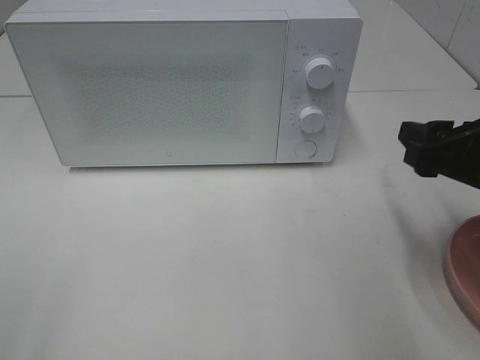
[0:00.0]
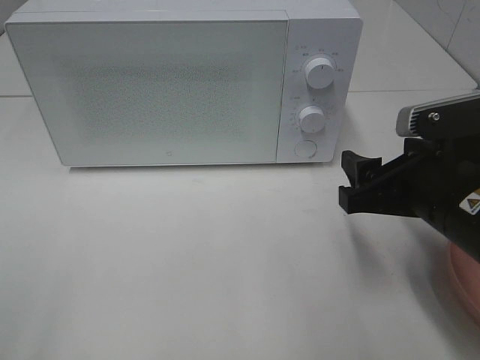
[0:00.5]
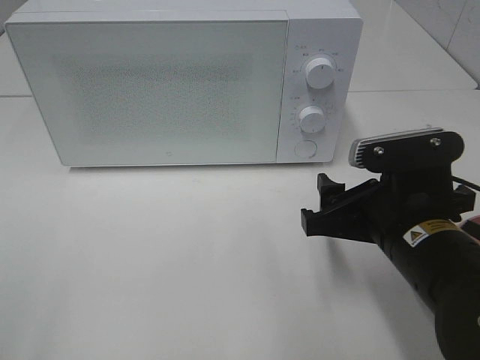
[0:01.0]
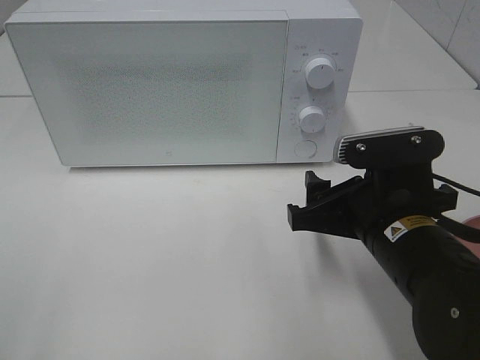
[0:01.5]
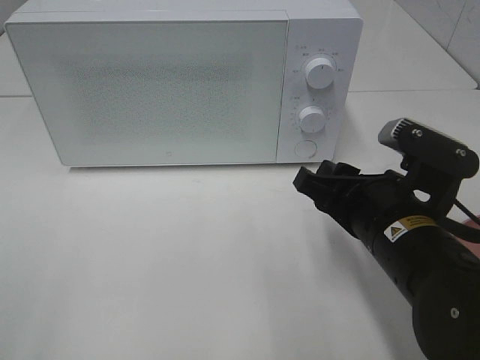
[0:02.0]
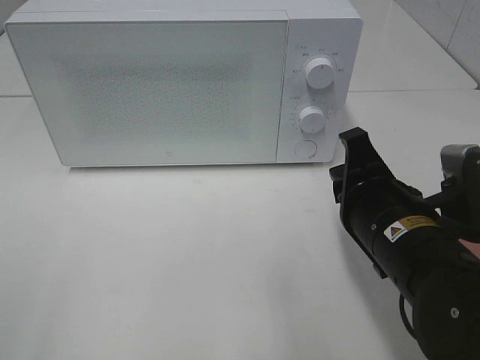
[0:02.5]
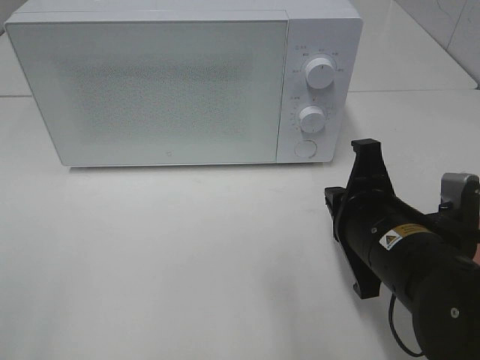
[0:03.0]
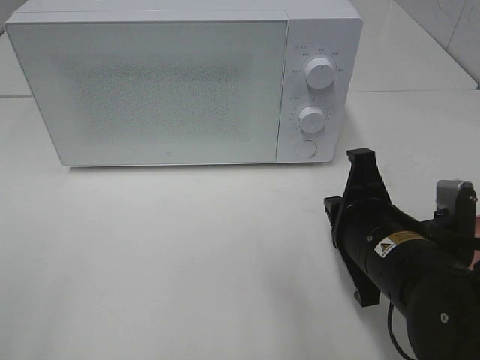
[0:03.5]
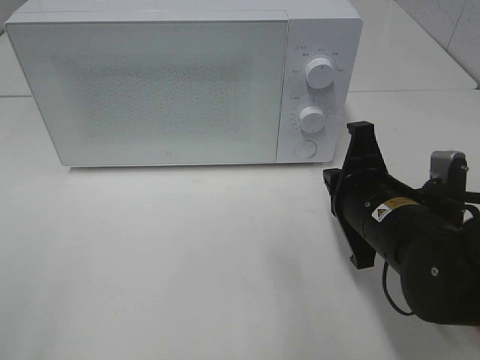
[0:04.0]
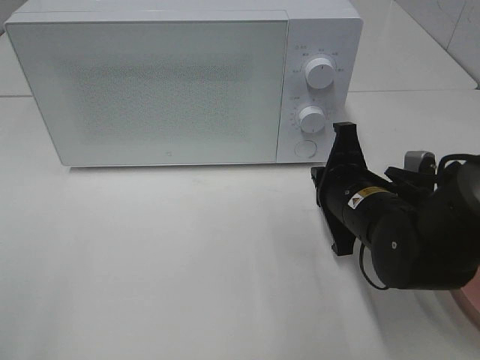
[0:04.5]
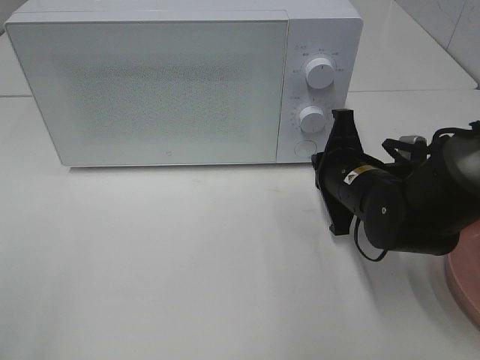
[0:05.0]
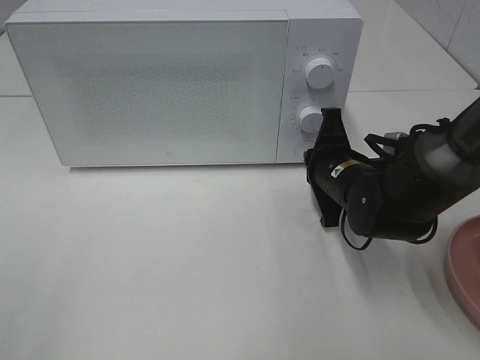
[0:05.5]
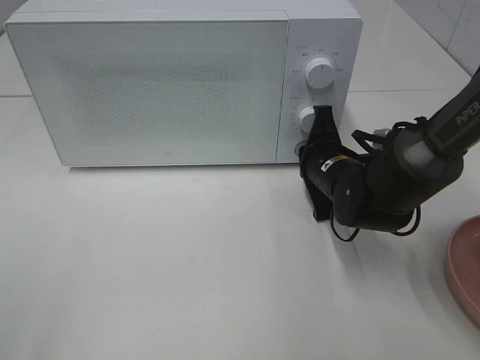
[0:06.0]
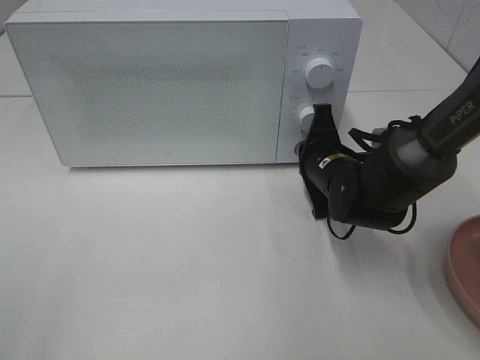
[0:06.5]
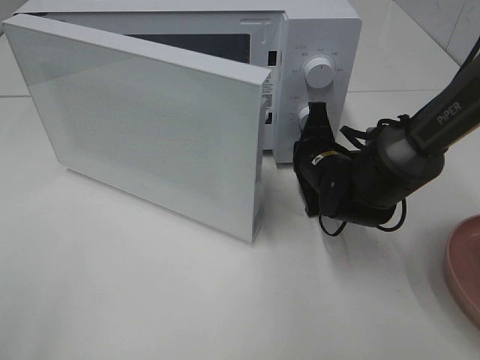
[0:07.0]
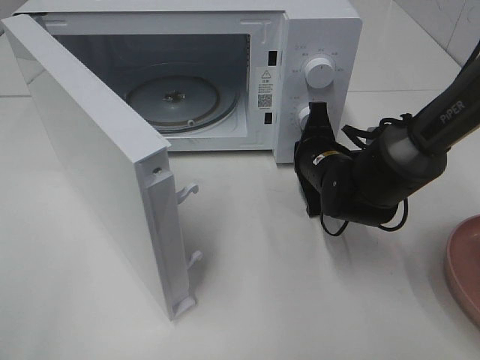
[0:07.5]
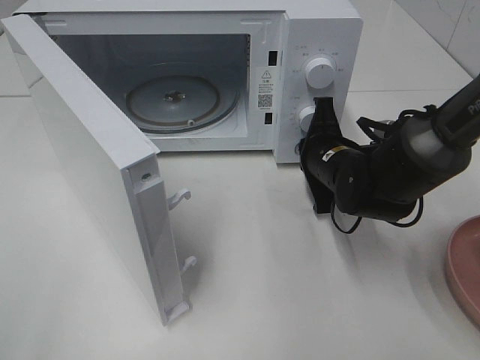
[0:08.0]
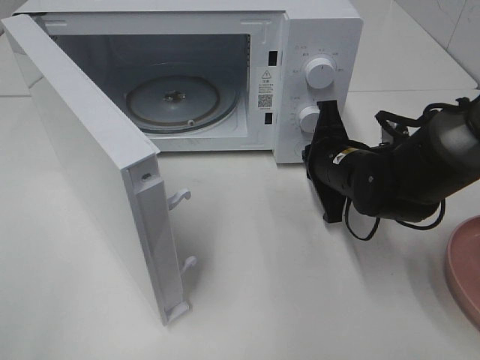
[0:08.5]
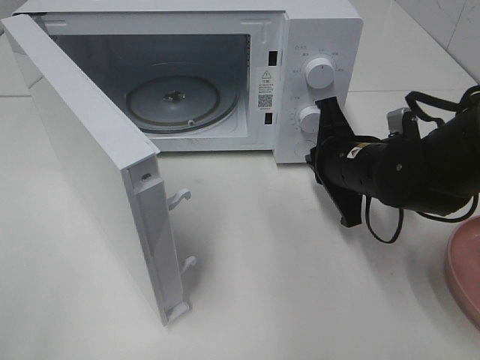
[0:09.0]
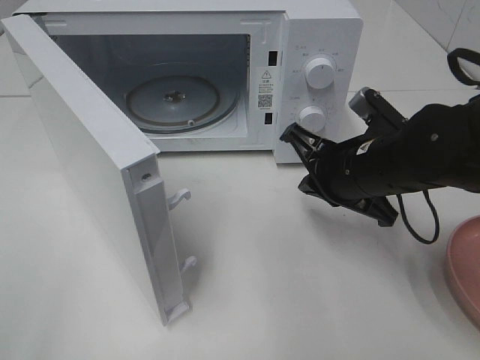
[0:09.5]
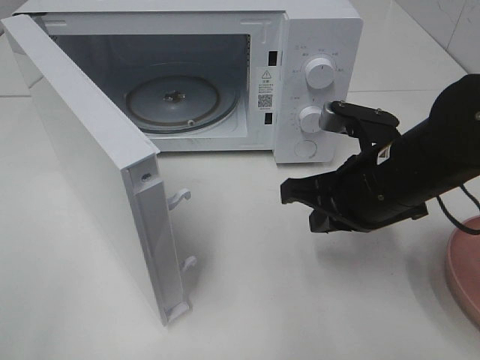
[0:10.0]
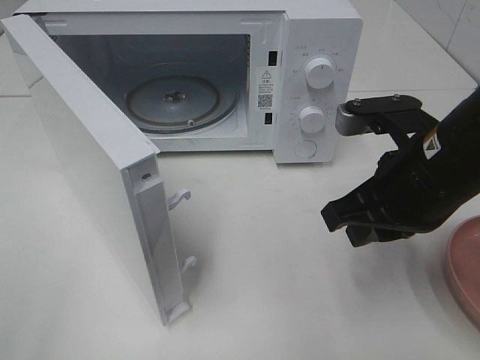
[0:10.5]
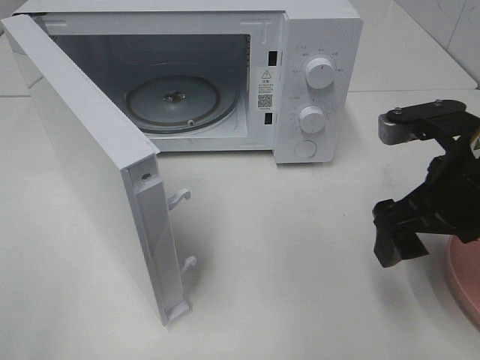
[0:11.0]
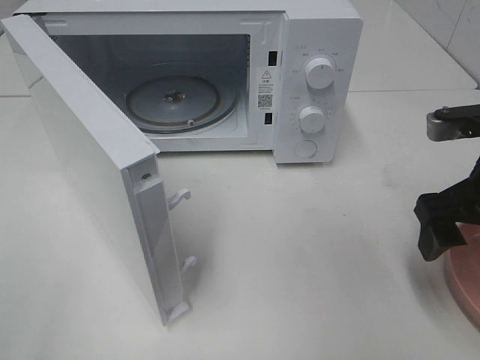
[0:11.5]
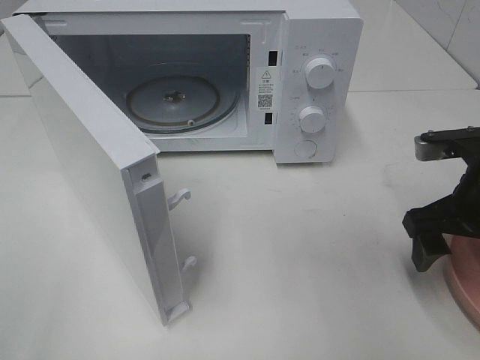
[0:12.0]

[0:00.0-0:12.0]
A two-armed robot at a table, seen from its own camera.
Task of the whole recording: Heat the burger.
Step, 0:00.0 to 0:08.0: Right hand: press the switch.
0:00.0 to 0:02.0: The right gripper goes approximately 10 cm to the left and downward.
0:02.0 to 0:04.0: The right gripper closes up.
0:04.0 to 0:06.0: The right gripper shifts about 15 cm forward and downward.
0:08.0 to 0:10.0: The right gripper is displaced backward and upward by roughly 15 cm.
0:10.0 to 0:12.0: The right gripper shifts about 10 cm to the right, and opens its fingers.

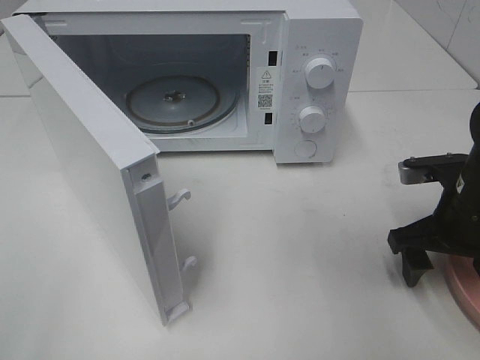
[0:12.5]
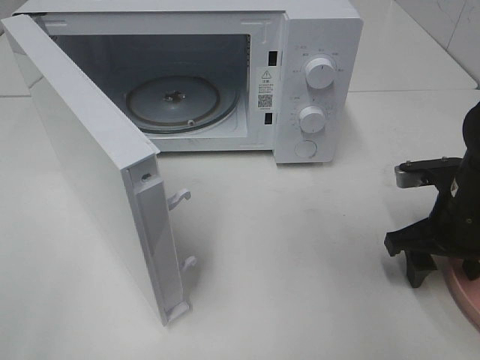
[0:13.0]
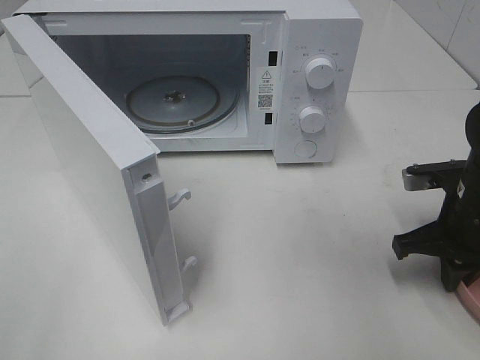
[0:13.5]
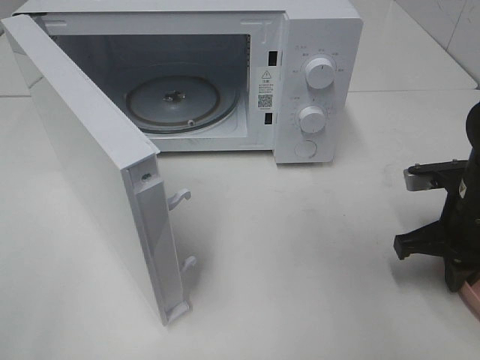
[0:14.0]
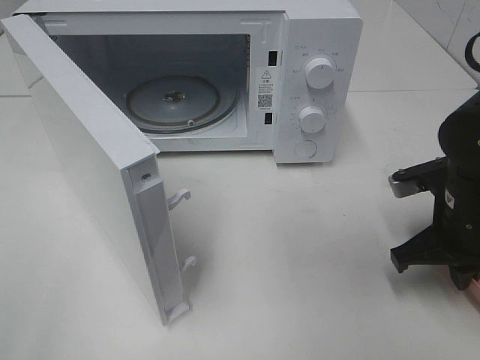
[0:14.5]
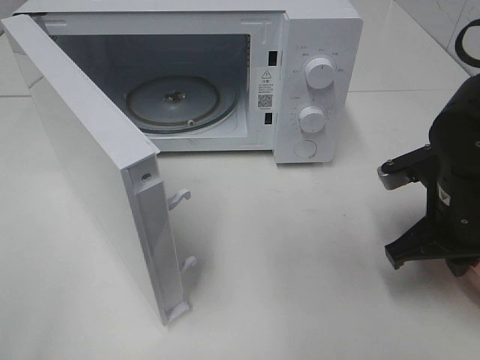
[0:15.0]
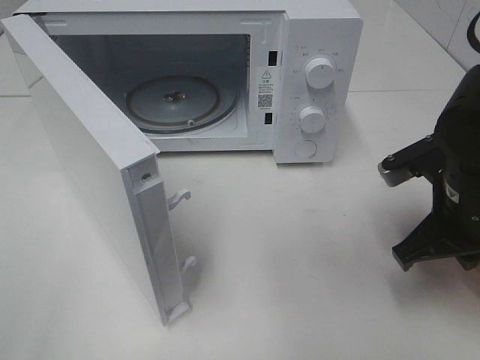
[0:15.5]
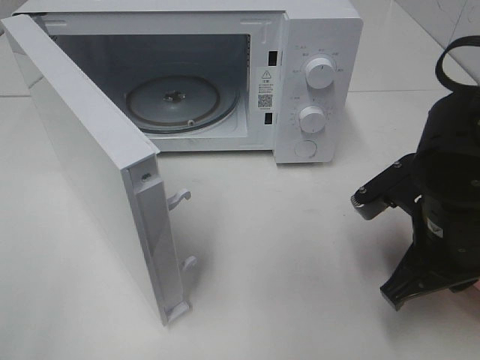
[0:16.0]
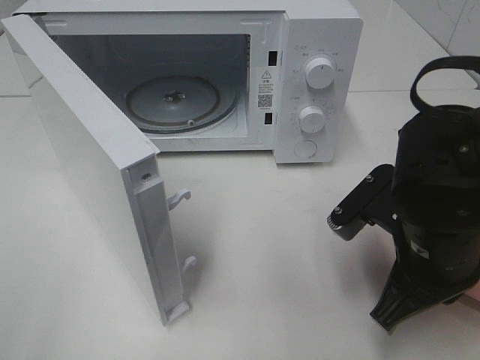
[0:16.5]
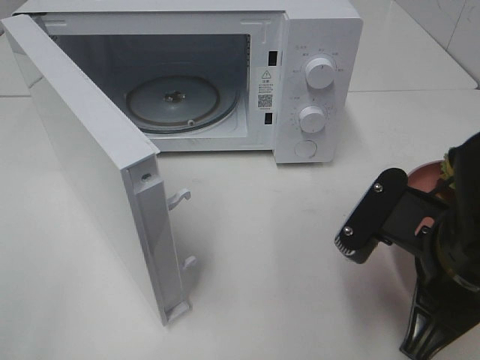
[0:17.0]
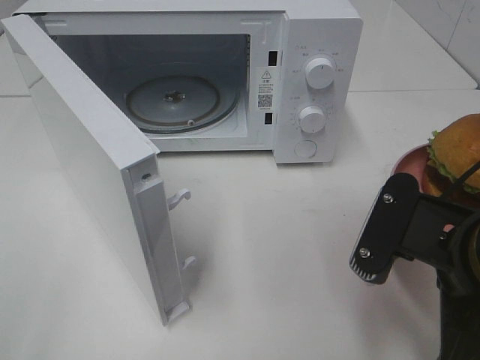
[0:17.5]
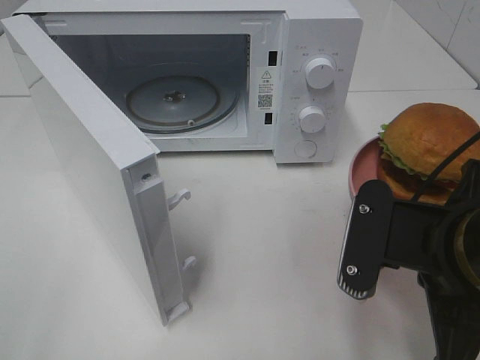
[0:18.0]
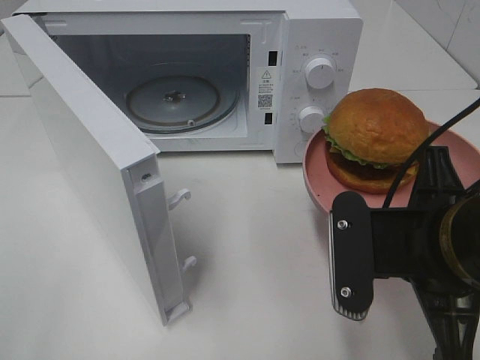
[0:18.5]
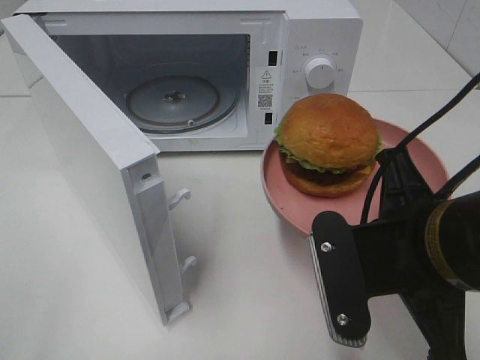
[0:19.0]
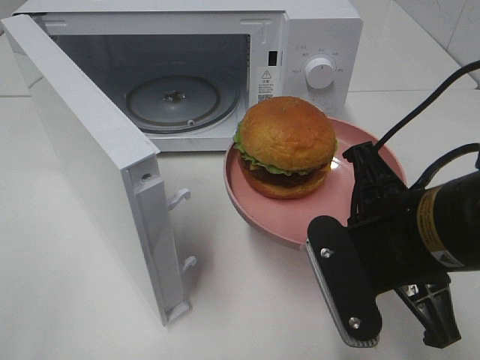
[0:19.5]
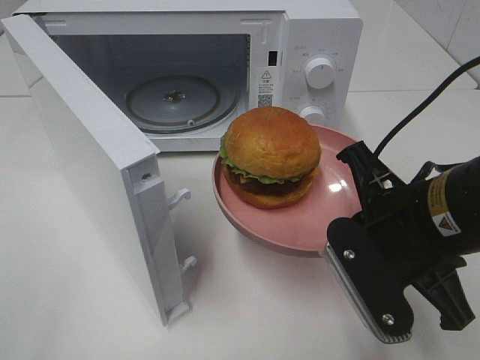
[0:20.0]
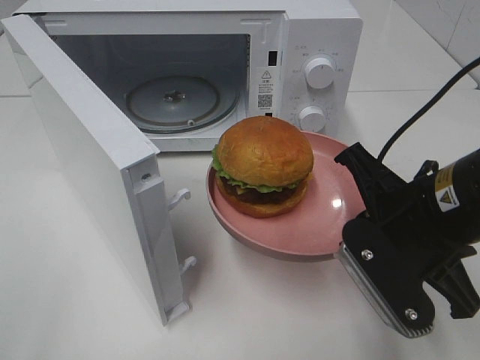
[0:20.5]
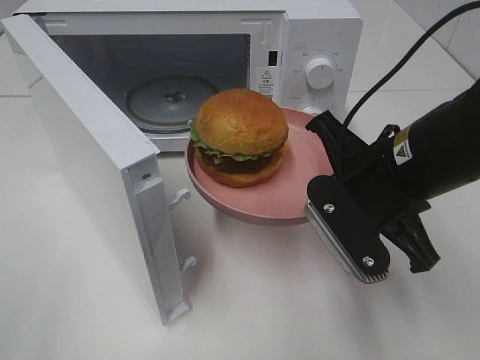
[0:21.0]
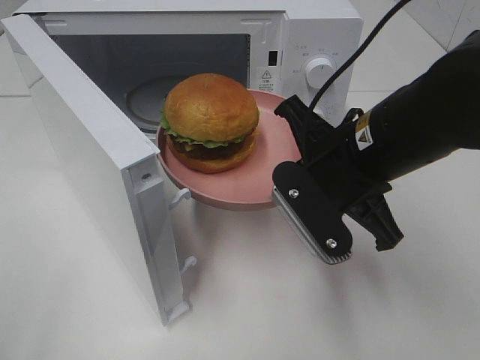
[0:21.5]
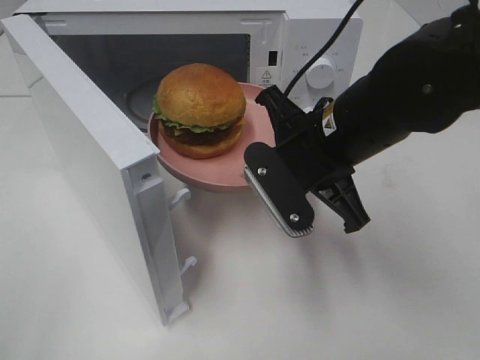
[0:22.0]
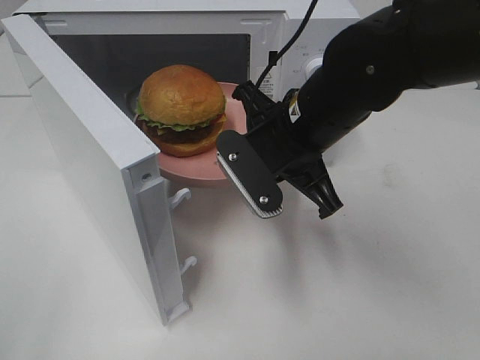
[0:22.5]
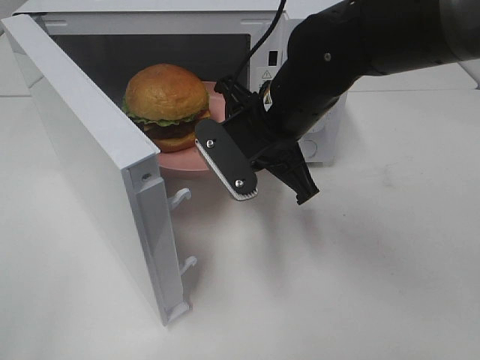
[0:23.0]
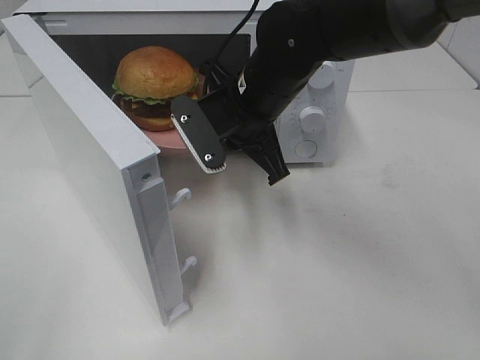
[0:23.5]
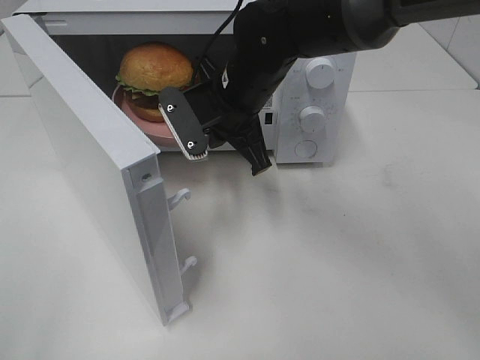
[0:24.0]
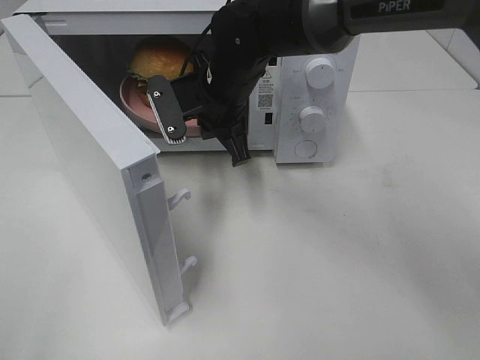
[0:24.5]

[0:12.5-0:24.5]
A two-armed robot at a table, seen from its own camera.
Task of the whole recording: Heat the burger.
0:12.5 to 0:14.5: The right gripper closes its fingers.
0:14.5 to 0:16.5: The right gripper travels to the left and backward by approximately 10 cm.
0:16.5 to 0:18.5: The right gripper changes place by some 5 cm.
0:20.5 to 0:22.5: The right gripper is displaced forward and to the left by about 15 cm.
0:22.5 to 0:24.5: The right gripper moves forward and to the left, about 15 cm.

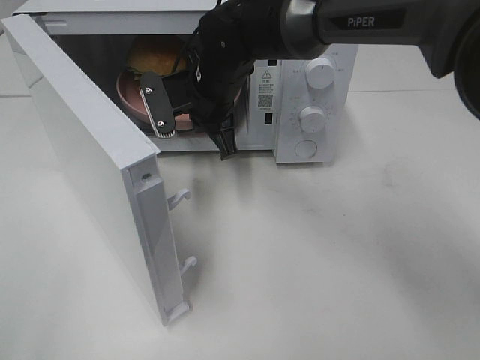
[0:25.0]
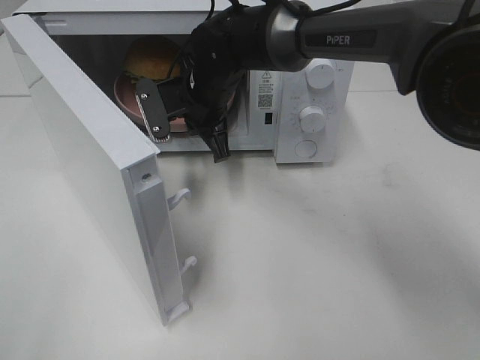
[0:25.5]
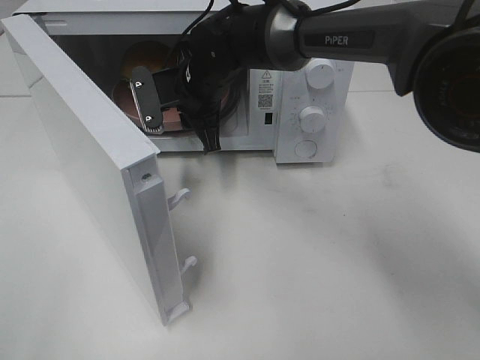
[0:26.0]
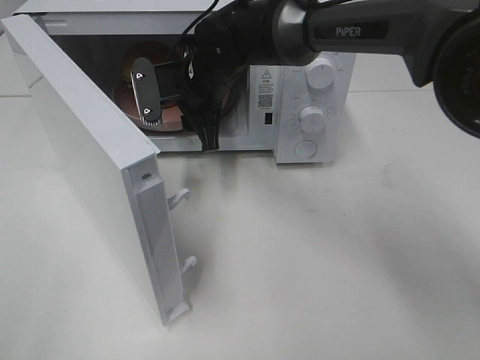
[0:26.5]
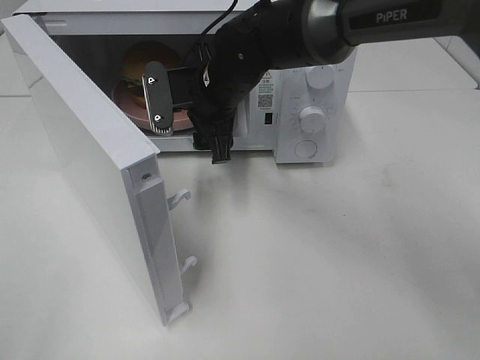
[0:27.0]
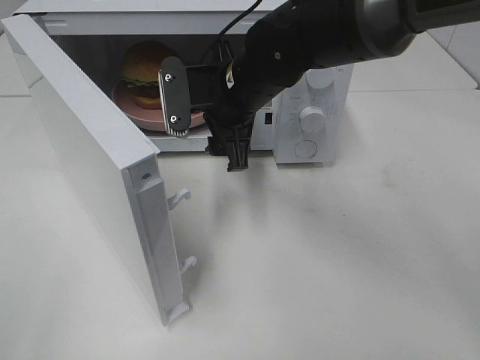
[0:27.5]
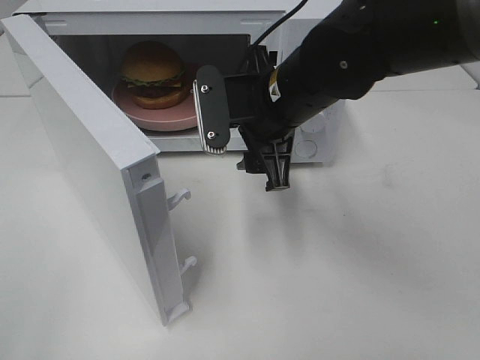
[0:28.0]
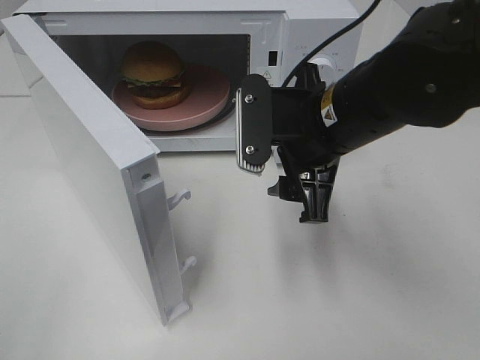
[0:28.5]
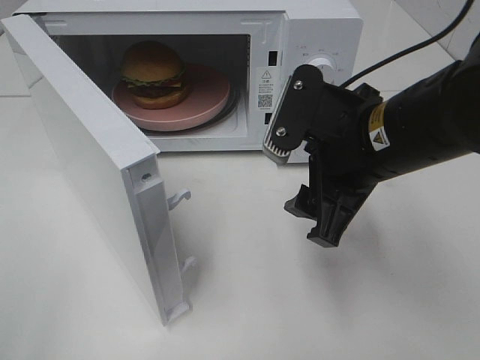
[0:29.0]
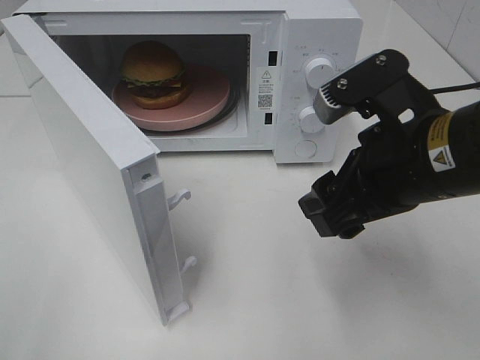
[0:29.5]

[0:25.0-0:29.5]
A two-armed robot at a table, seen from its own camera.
Task of the whole recording: Heat the burger.
0:25.0 to 0:27.0: The right gripper opens its fingers.
0:27.0 to 0:29.5: The right gripper is displaced backward and to the right by roughly 25 cm.
